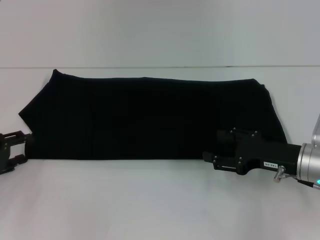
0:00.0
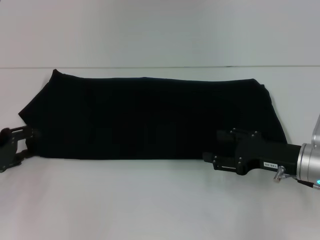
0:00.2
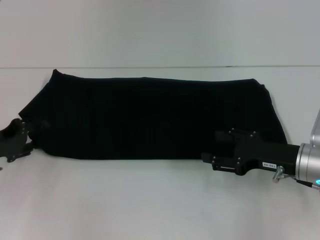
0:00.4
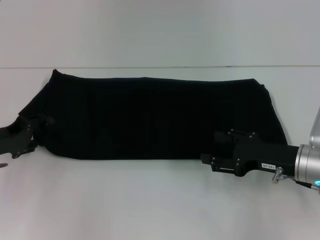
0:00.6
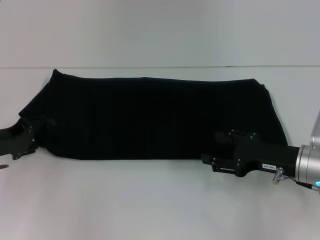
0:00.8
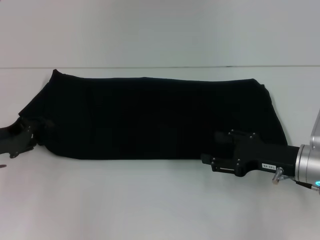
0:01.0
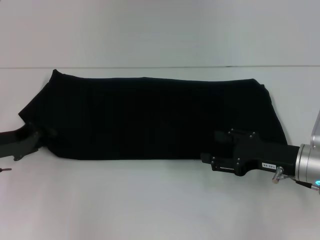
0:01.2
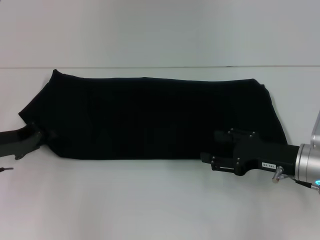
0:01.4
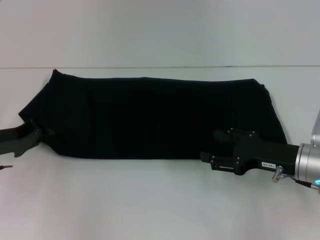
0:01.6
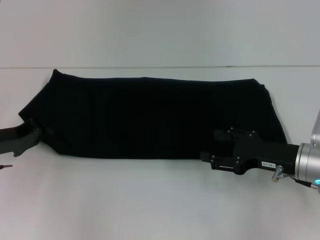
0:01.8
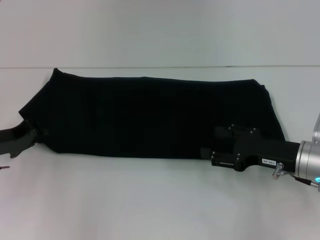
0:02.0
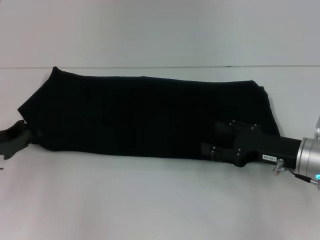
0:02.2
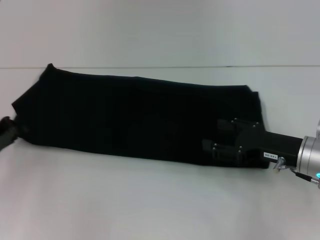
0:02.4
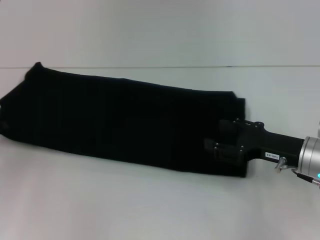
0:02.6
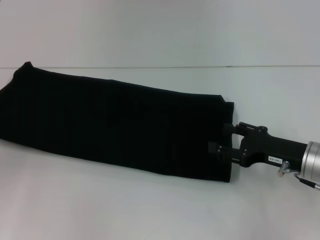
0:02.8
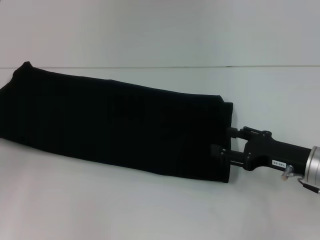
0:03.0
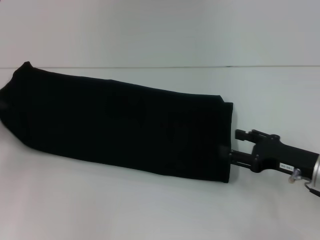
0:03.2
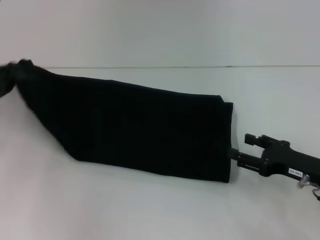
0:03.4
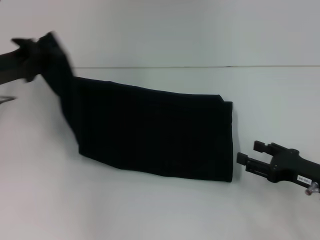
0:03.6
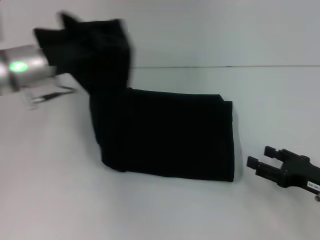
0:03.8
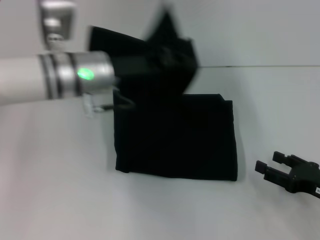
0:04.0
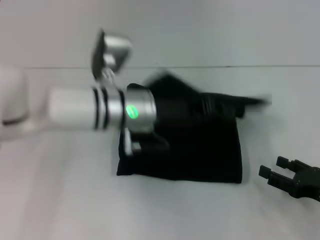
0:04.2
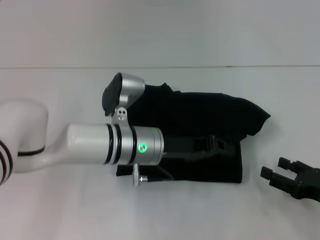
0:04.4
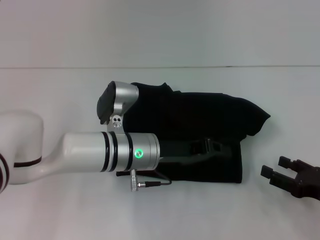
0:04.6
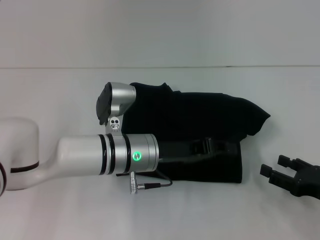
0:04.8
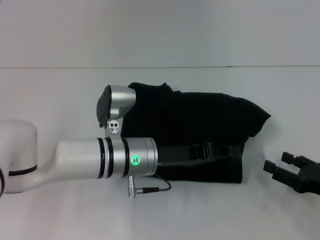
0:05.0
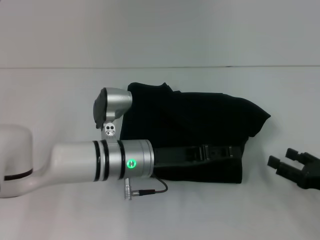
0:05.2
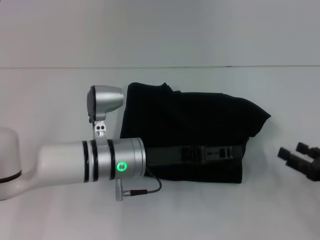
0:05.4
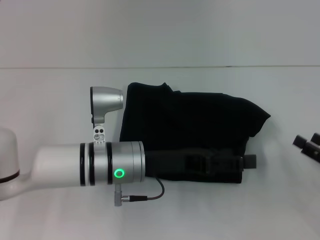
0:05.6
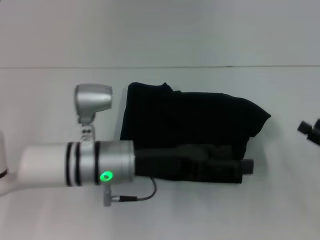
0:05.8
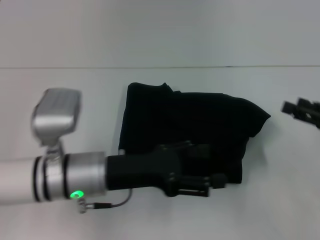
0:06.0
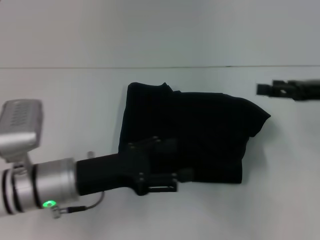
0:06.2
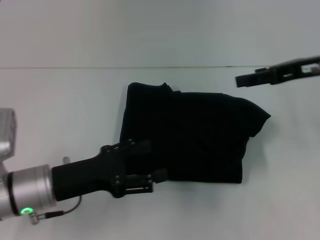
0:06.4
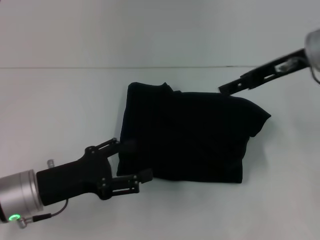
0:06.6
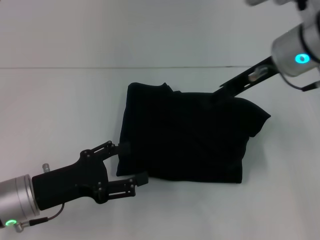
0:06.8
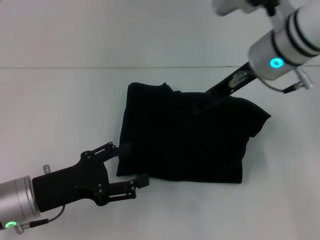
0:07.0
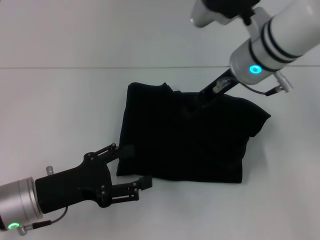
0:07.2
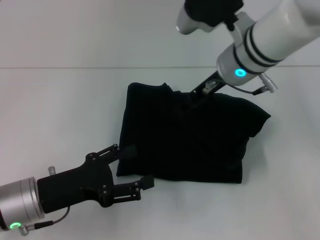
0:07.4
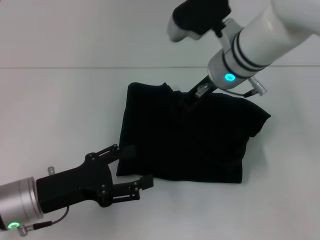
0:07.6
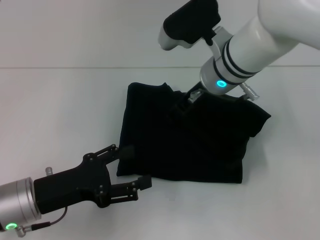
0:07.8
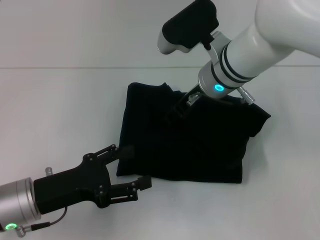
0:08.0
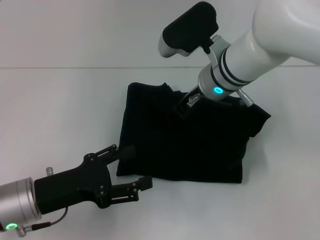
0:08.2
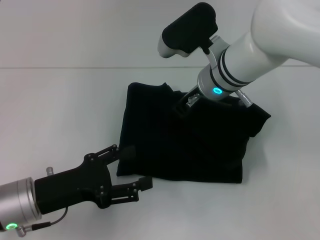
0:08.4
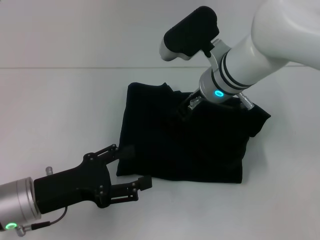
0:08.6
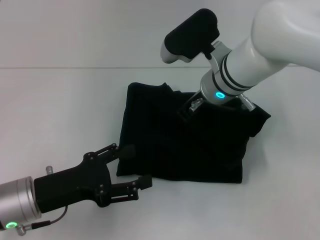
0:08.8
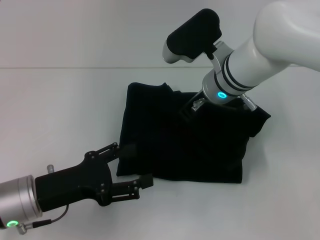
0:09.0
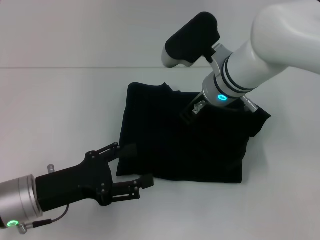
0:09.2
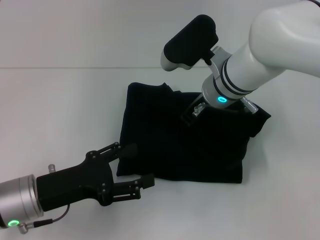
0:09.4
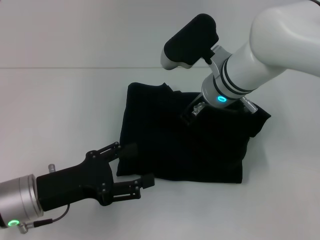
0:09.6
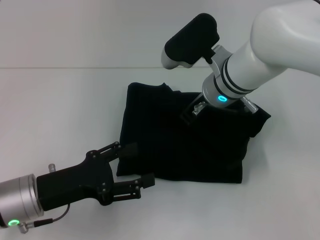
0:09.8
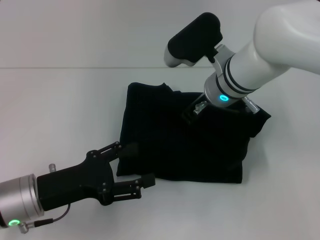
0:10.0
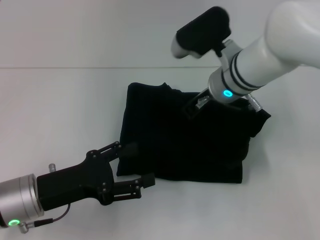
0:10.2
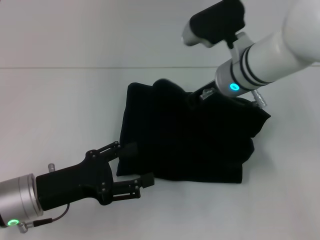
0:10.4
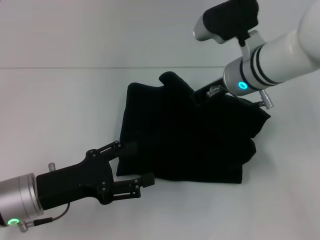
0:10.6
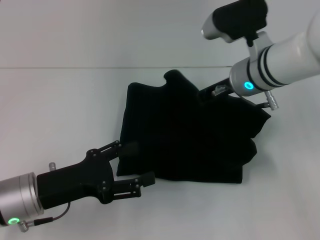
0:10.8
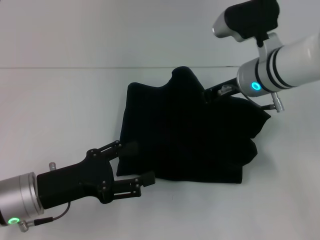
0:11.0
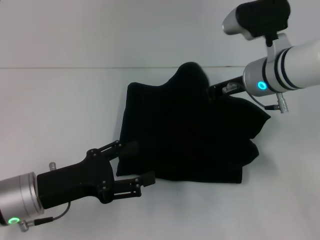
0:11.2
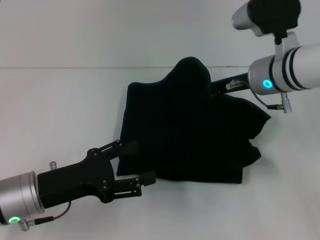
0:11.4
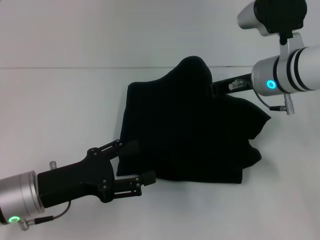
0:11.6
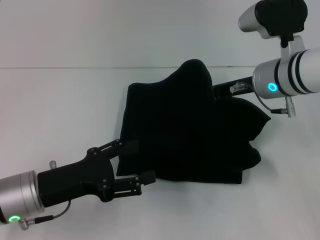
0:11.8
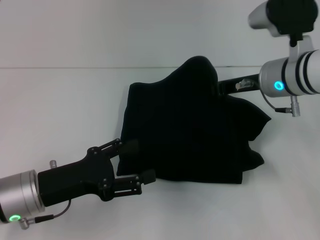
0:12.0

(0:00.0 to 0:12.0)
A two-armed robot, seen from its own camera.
Step, 0:00.0 - 0:05.6: Fold the clothes with your left hand.
0:00.0 - 0:01.6: The left gripper shifts by about 5 cm, and closes.
0:01.6 - 0:03.0: The left gripper moves to the left, some 10 cm.
0:03.0 - 0:04.4: The right gripper goes roughly 10 cm backward and to the right. Meanwhile the left gripper goes some 35 cm to the right.
0:04.4 - 0:06.0: The right gripper travels upward and forward by approximately 10 cm; the left gripper moves to the left and backward, some 10 cm, and opens its fingers.
0:06.0 - 0:07.6: The right gripper moves to the left and forward, about 30 cm; the left gripper moves to the left, about 10 cm.
0:07.6 - 0:09.0: There are only small adjustments of the grippers.
0:09.0 - 0:10.4: The right gripper closes its fingers.
0:10.4 - 0:12.0: The right gripper shifts some 5 cm to the right.

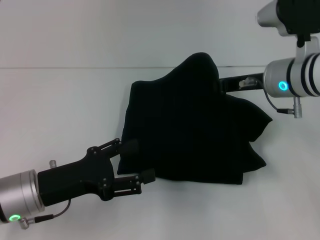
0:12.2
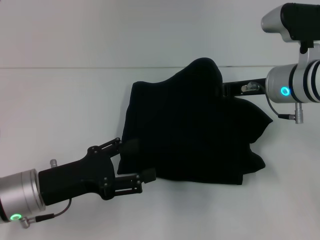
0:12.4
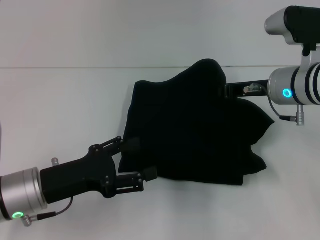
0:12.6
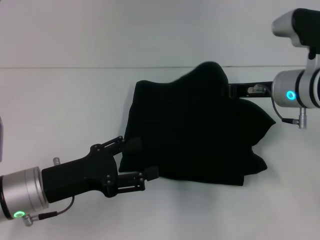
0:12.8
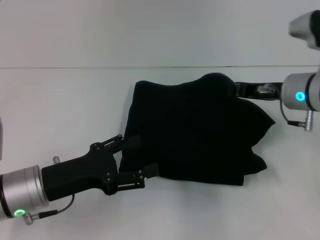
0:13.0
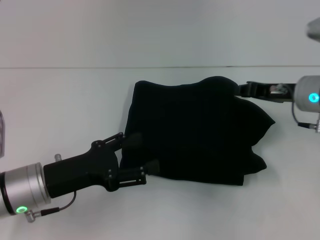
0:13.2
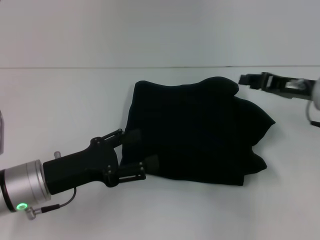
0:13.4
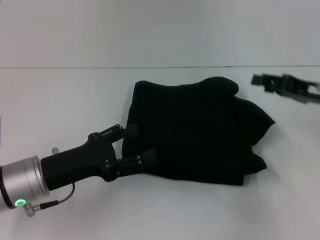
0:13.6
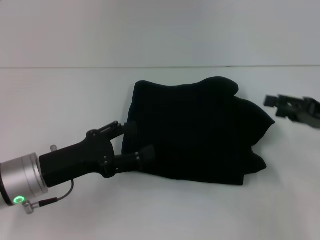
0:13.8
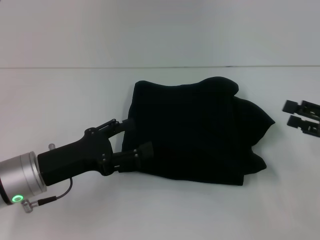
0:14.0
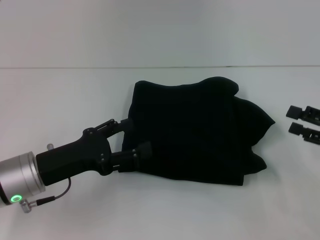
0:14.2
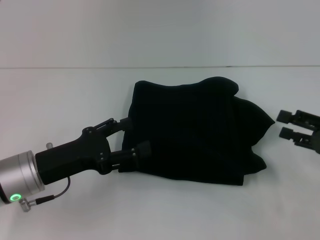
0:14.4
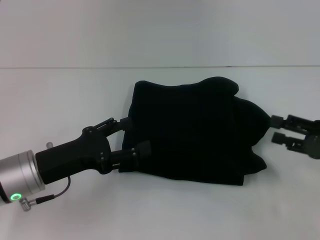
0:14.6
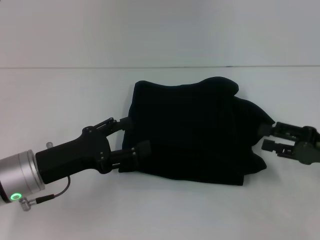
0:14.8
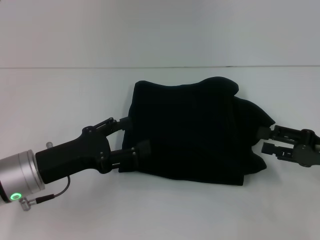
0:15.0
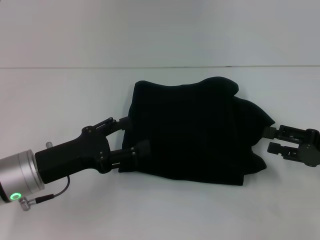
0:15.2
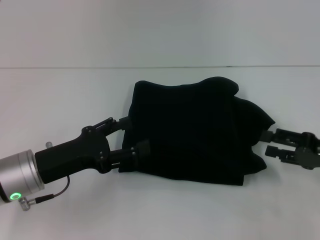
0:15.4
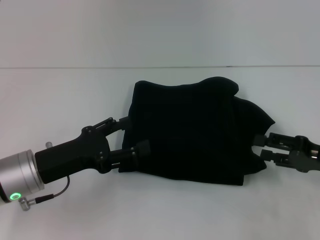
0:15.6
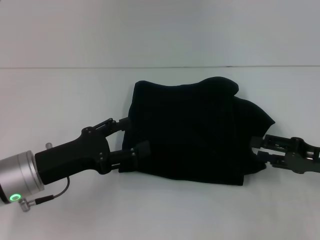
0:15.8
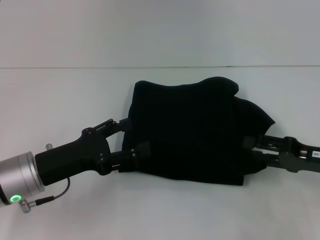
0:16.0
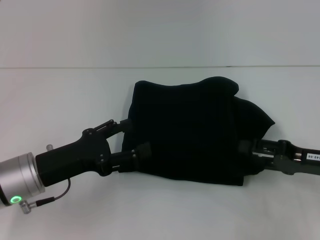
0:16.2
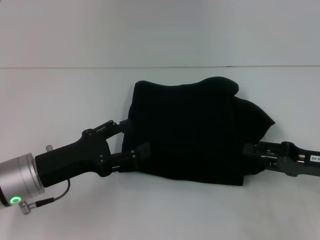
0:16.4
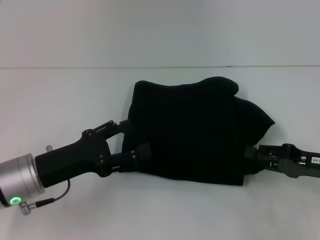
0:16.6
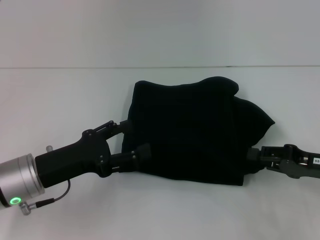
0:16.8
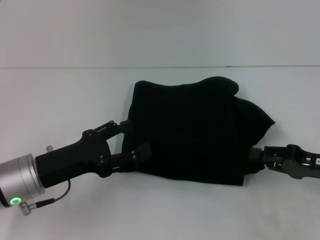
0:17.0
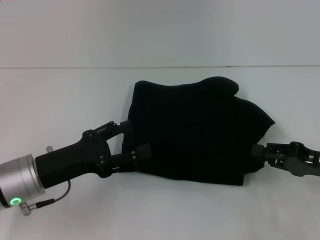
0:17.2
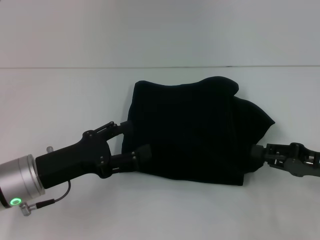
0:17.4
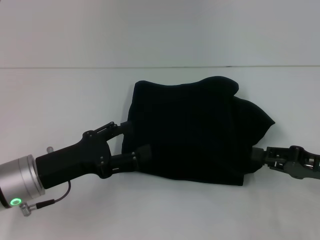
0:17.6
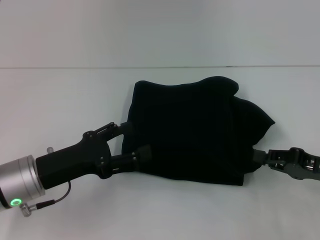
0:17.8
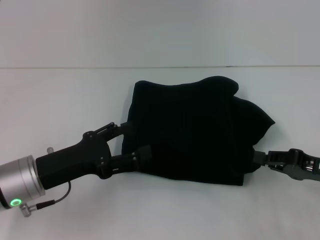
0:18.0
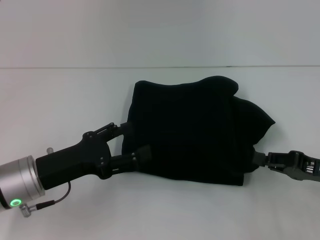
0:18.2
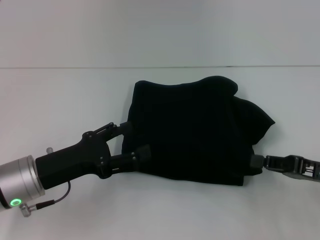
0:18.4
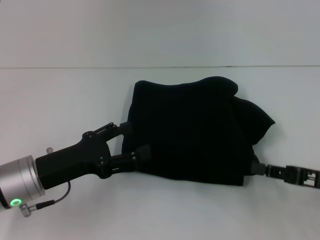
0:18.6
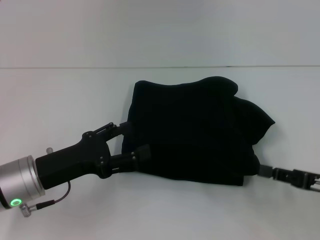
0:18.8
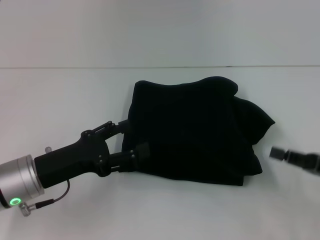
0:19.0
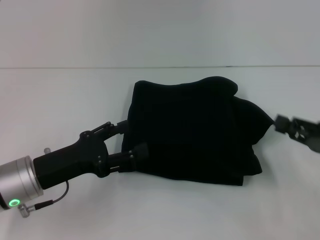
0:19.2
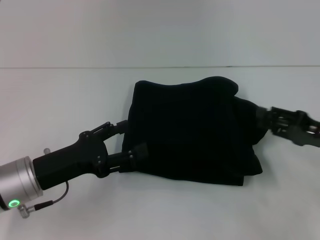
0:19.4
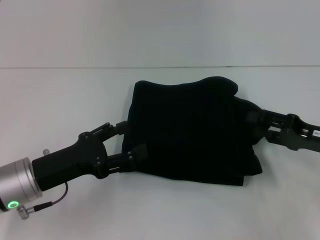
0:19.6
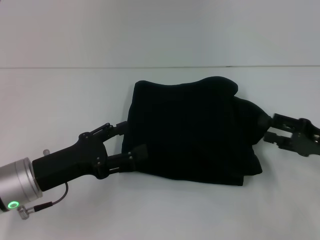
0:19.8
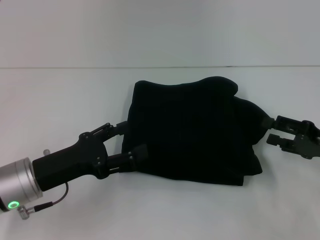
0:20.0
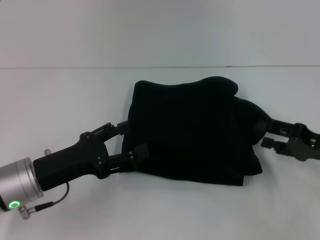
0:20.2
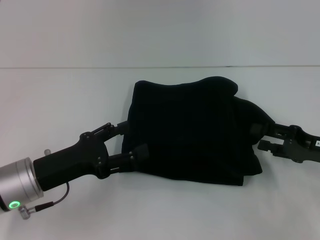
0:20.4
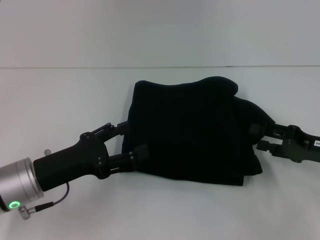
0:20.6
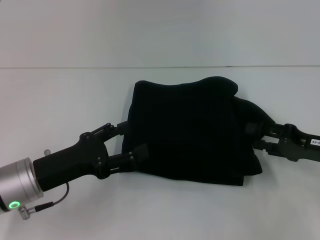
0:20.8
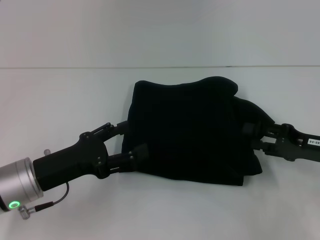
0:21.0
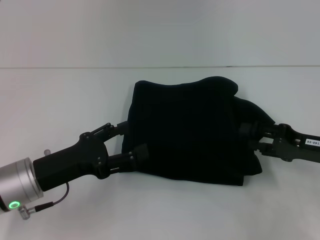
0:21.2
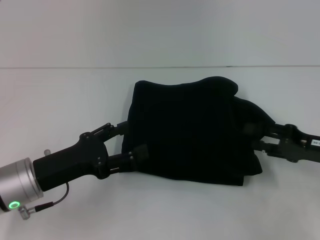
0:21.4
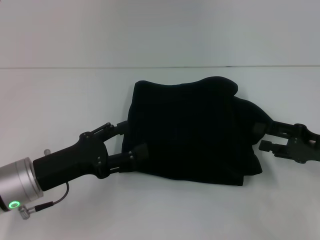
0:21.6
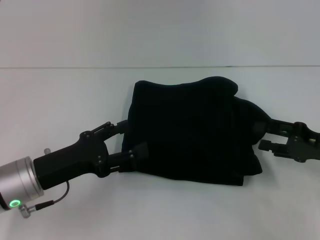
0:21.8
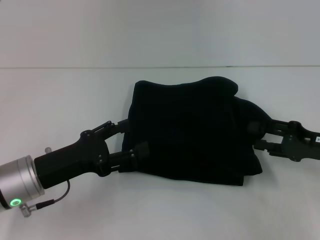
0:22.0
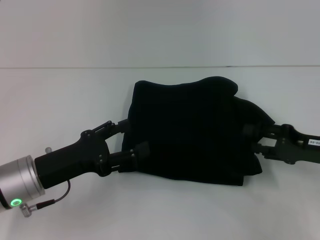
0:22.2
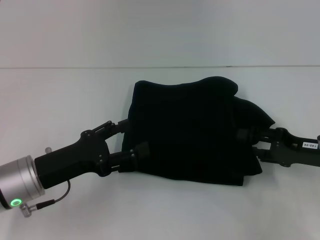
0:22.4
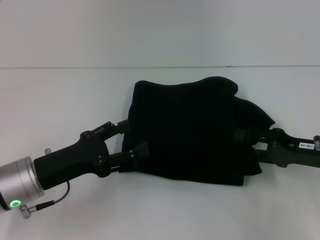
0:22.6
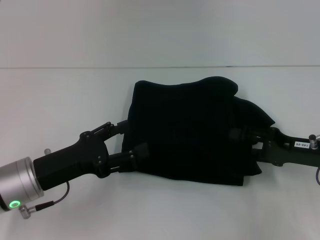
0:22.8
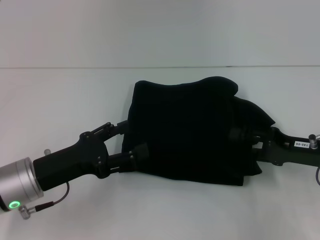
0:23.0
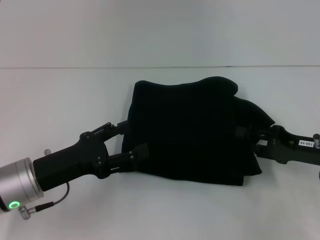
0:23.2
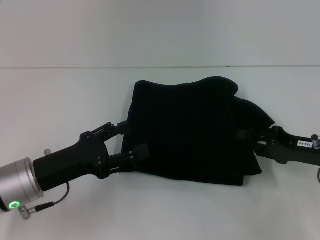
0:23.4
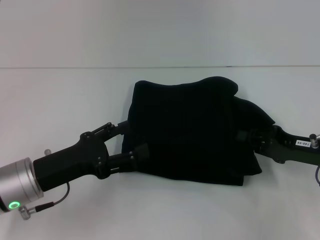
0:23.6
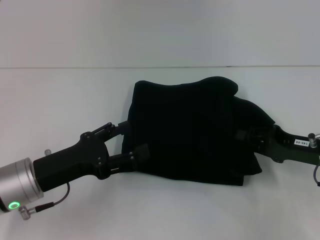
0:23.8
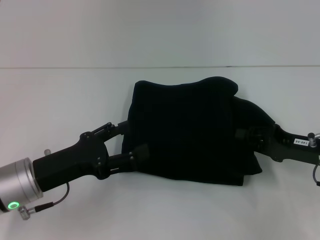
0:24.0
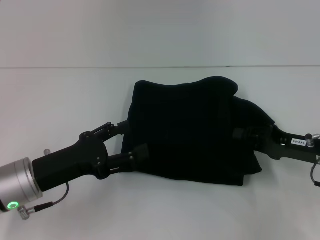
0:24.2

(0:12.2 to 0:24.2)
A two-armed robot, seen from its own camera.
0:12.2 - 0:13.8: The right gripper goes about 15 cm to the right and backward, and opens.
0:13.8 - 0:16.6: The grippers stay close to where they were, moving slightly.
0:16.6 - 0:18.2: The right gripper closes its fingers.
0:18.2 - 0:19.8: The right gripper opens.
0:19.8 - 0:22.6: There are only small adjustments of the grippers.
0:22.6 - 0:24.2: The right gripper closes up.
